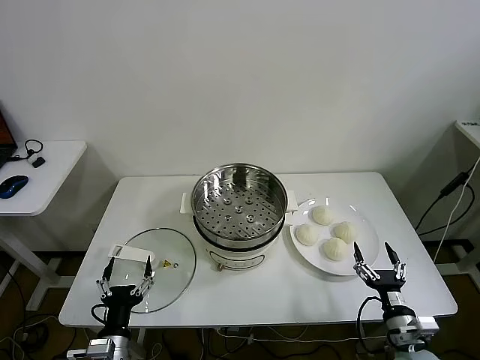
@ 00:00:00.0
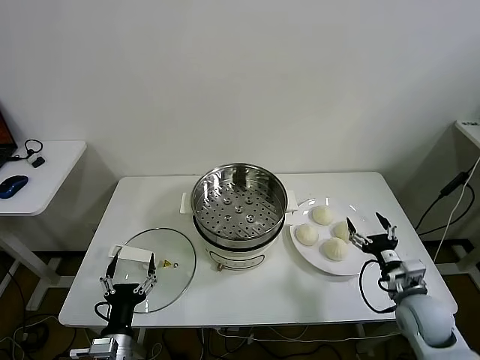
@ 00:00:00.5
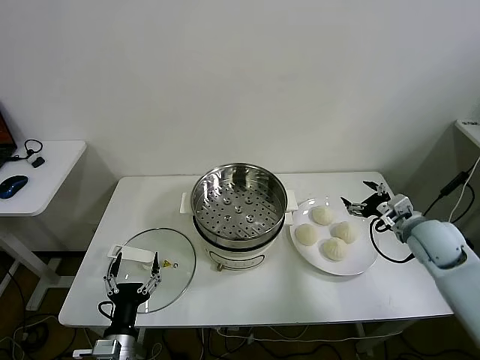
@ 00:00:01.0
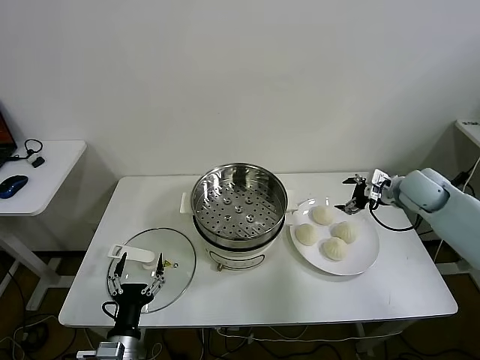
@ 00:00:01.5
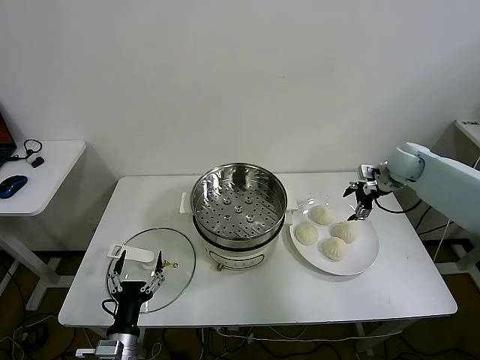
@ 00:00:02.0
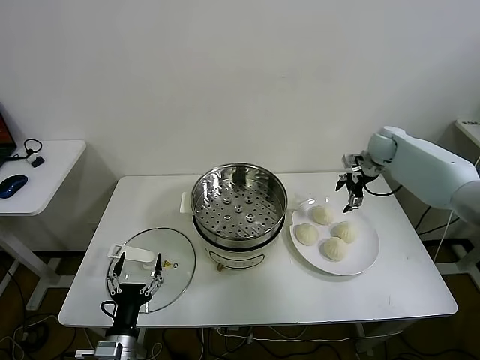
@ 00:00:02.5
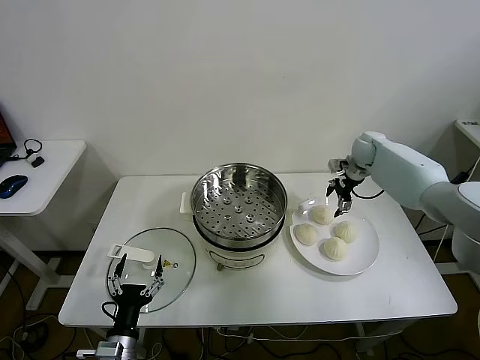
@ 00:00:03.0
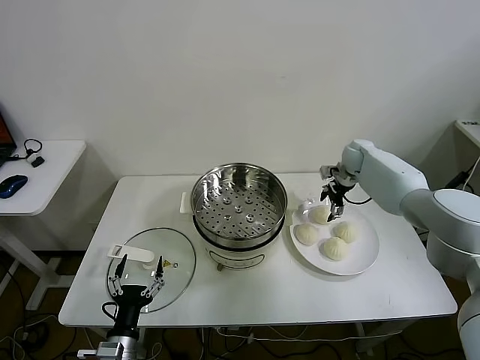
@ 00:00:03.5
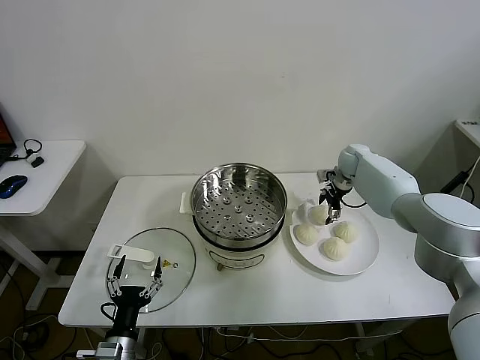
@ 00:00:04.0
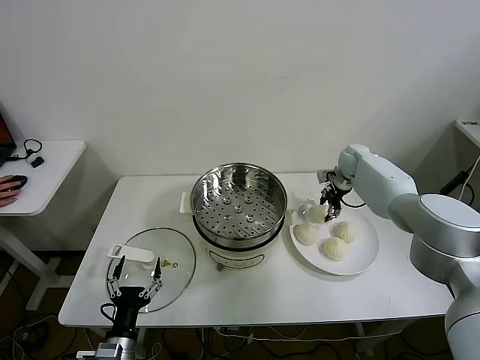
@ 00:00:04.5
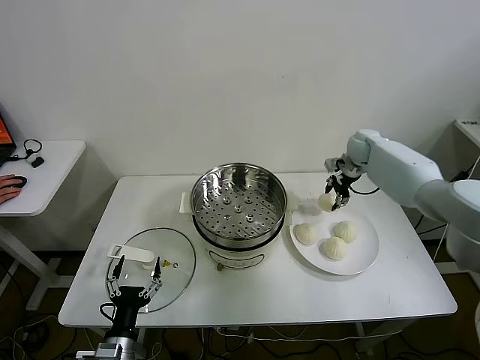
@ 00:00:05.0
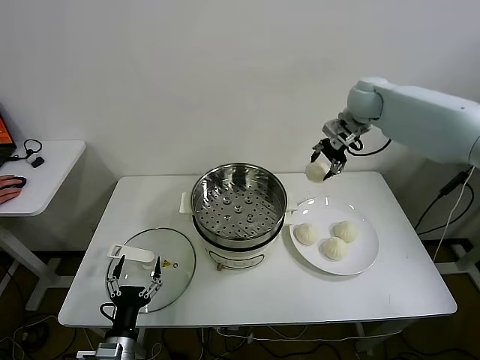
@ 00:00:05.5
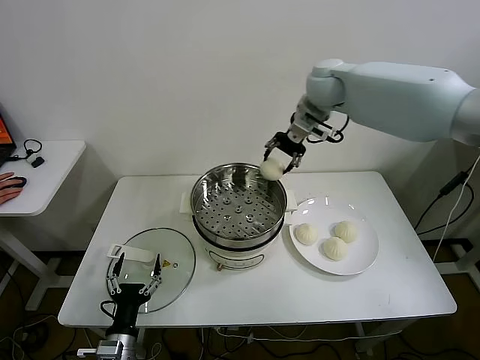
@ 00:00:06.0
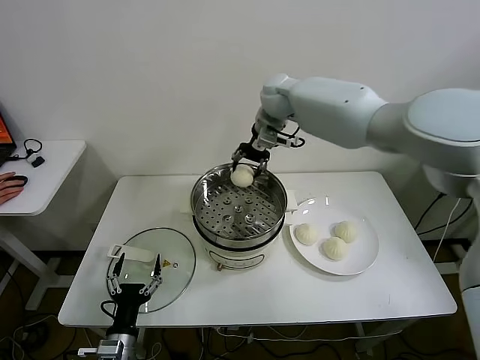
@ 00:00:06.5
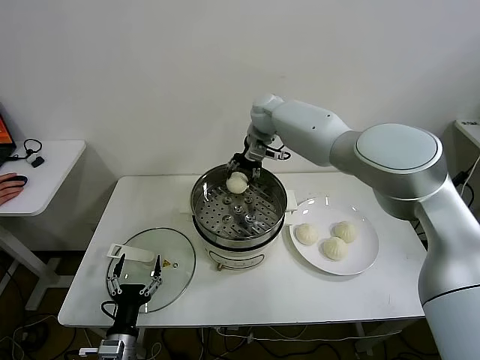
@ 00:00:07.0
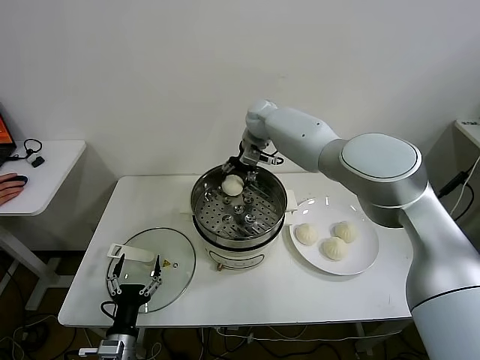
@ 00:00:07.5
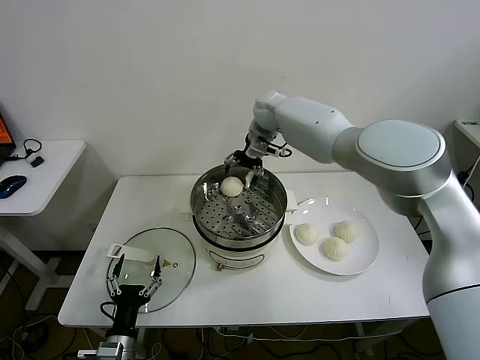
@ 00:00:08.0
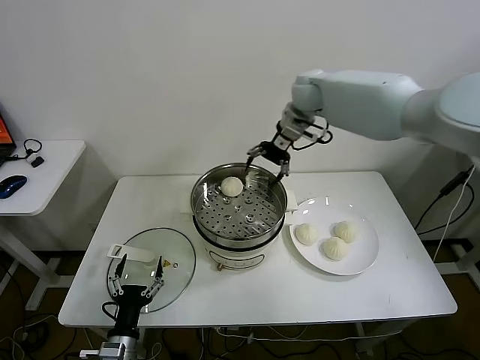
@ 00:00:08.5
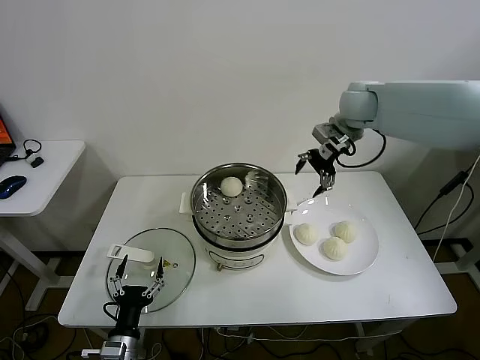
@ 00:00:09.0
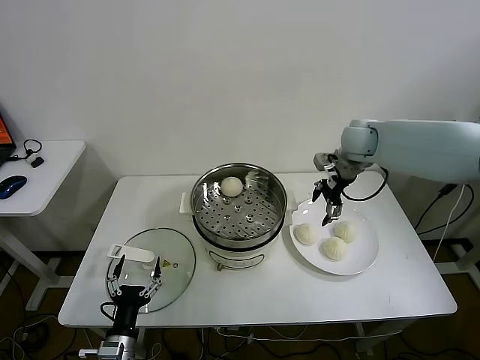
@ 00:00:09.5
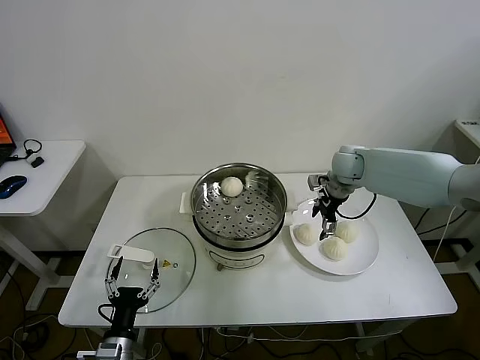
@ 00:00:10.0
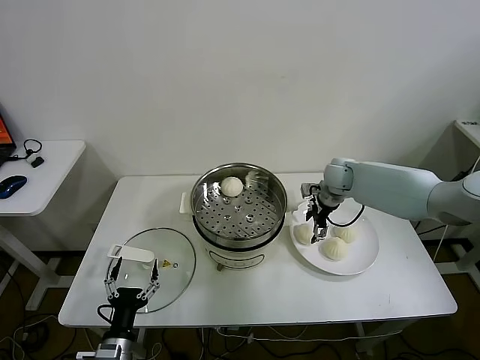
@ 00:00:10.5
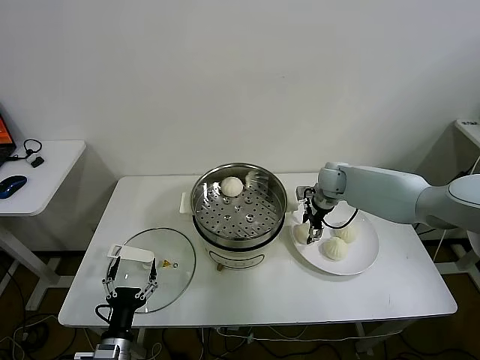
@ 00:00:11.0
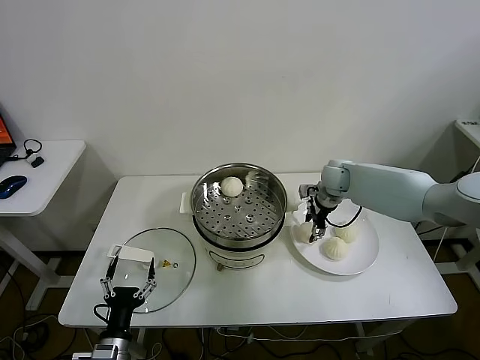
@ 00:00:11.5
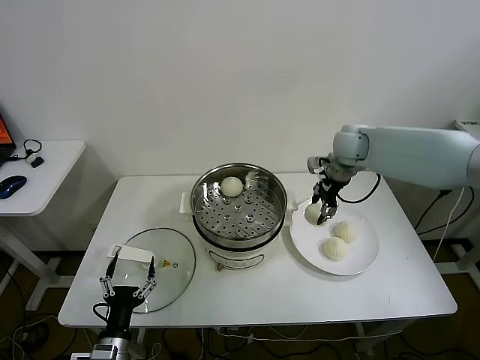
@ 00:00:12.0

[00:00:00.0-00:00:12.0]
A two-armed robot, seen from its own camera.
Task of the whole recording: take steamed baozi put them in steamer.
Step, 00:00:00.0 to 00:00:04.5: Grasp the baozi in the plate with right gripper.
Step, 00:00:05.0 to 00:00:07.5: Place the baozi on the steamer with right gripper.
Step, 00:00:08.0 to 00:00:11.0: Grasp the baozi in the plate with right gripper.
00:00:02.0 to 00:00:04.0: The right gripper travels to the left, downward and forward by some 15 cm.
00:00:04.0 to 00:00:06.0: The right gripper moves upward and to the left, roughly 30 cm, and closes up.
00:00:06.0 to 00:00:08.0: The right gripper moves downward, to the left and forward, approximately 10 cm, and opens.
00:00:08.0 to 00:00:10.0: The right gripper moves to the right, downward and backward, approximately 25 cm.
00:00:10.0 to 00:00:12.0: The right gripper shifts approximately 10 cm upward, and closes up.

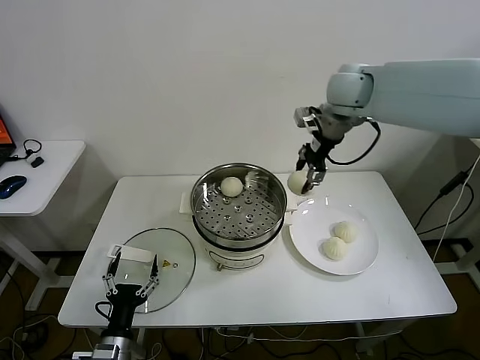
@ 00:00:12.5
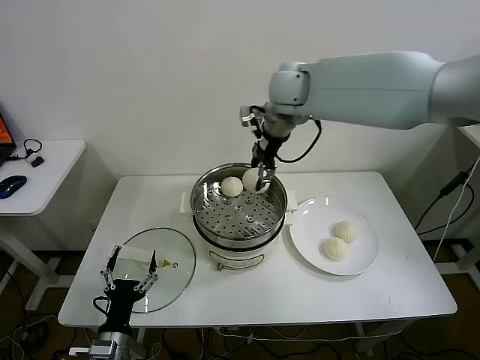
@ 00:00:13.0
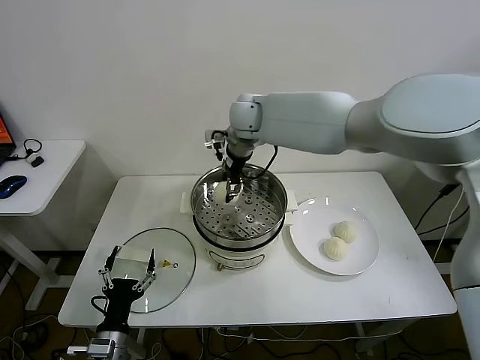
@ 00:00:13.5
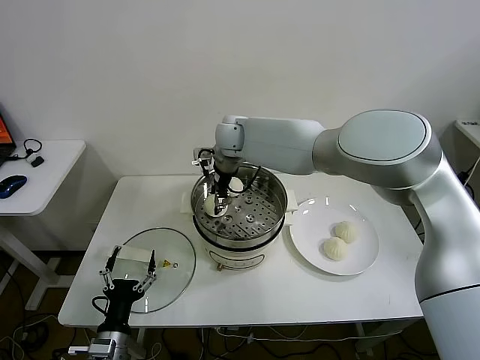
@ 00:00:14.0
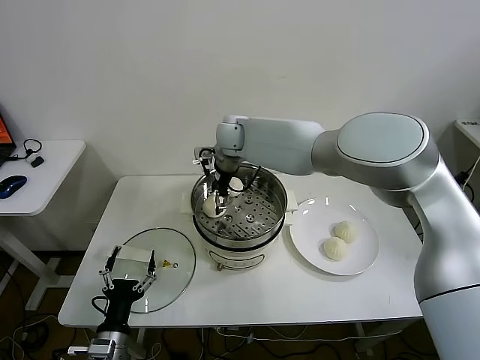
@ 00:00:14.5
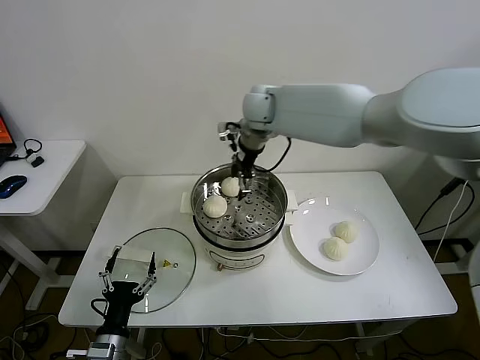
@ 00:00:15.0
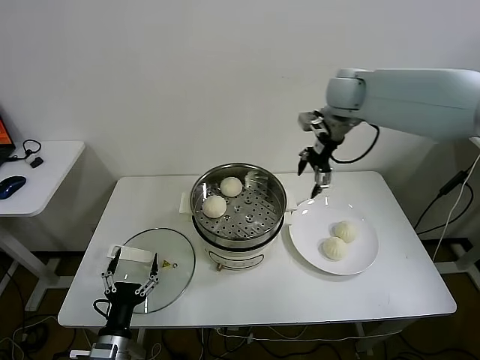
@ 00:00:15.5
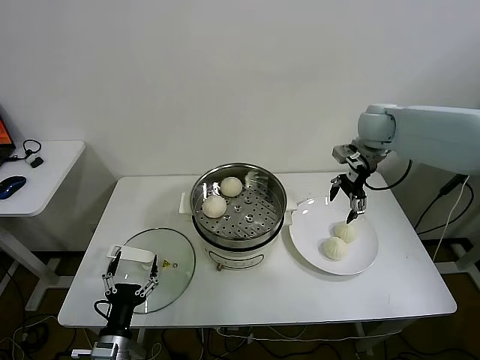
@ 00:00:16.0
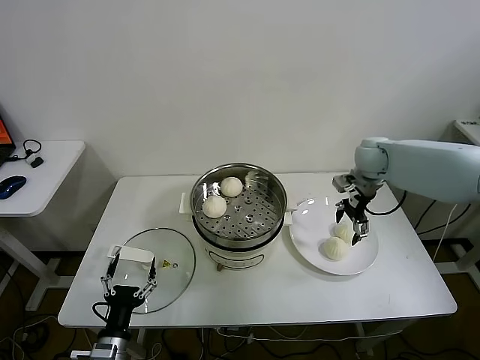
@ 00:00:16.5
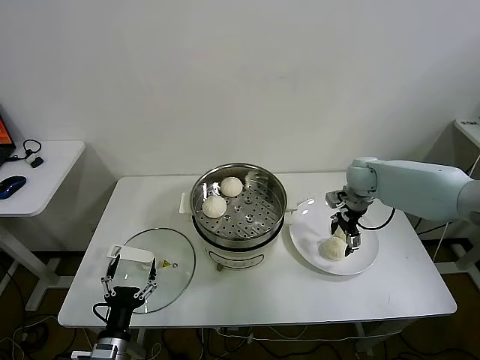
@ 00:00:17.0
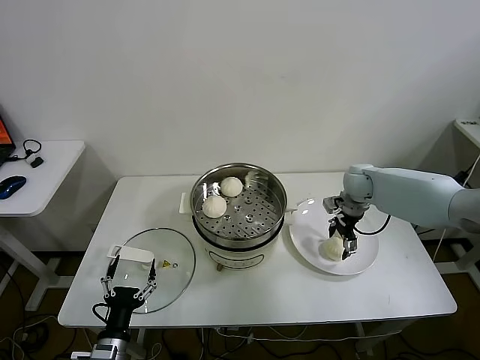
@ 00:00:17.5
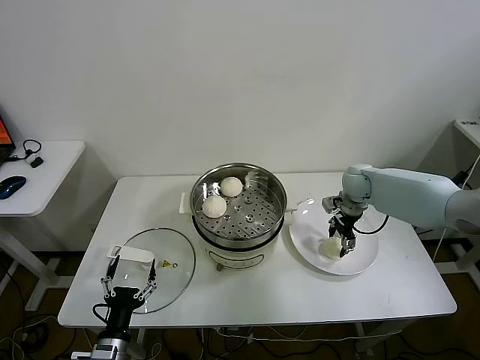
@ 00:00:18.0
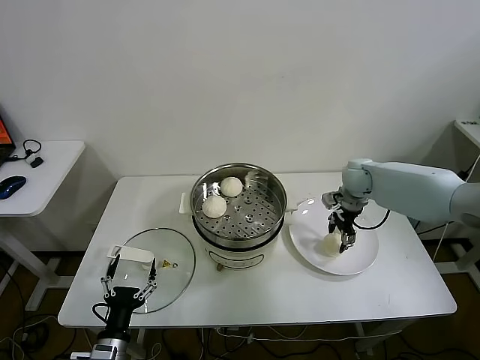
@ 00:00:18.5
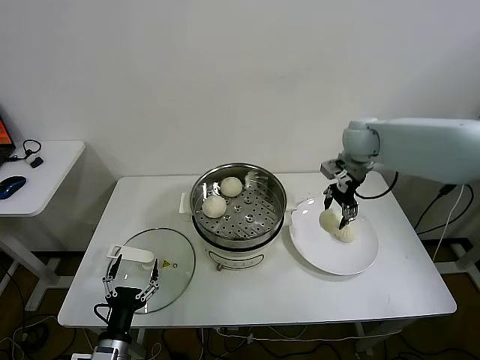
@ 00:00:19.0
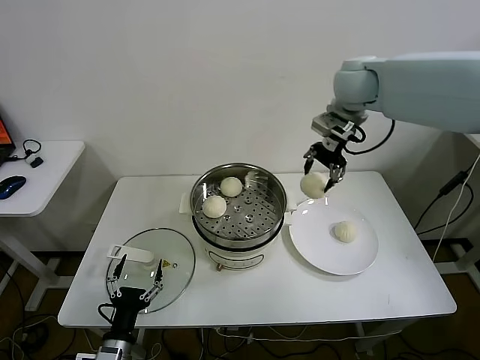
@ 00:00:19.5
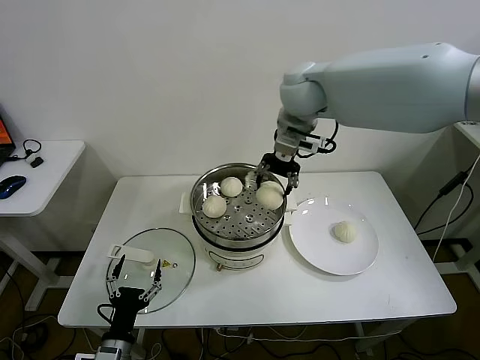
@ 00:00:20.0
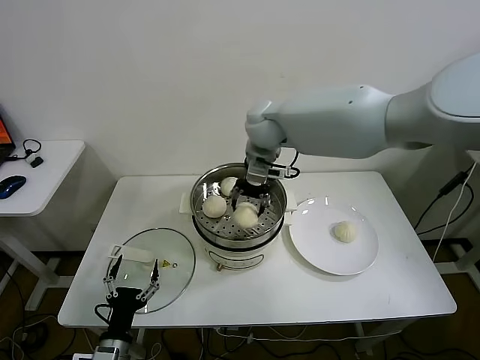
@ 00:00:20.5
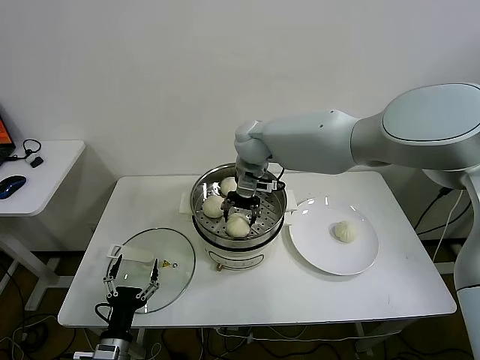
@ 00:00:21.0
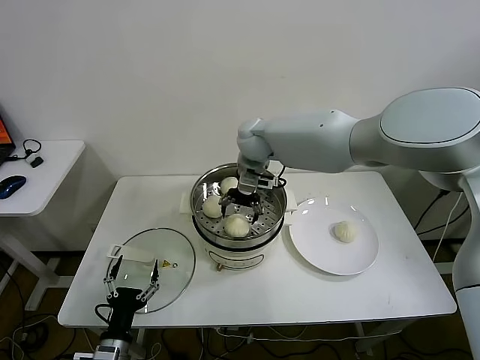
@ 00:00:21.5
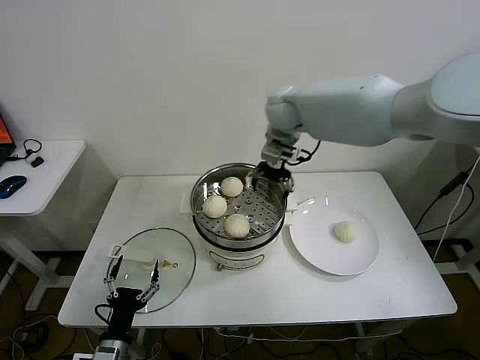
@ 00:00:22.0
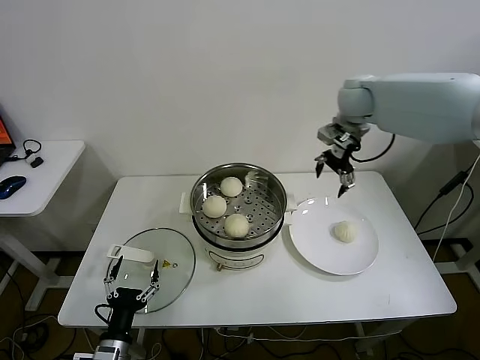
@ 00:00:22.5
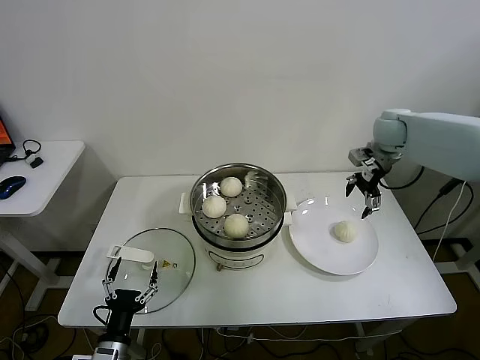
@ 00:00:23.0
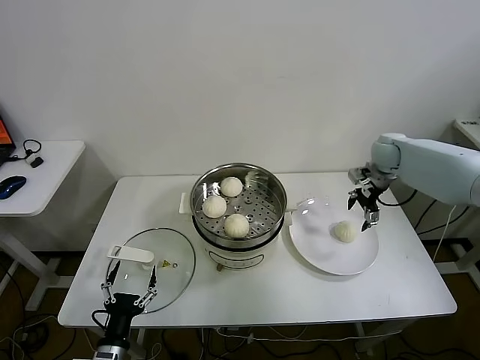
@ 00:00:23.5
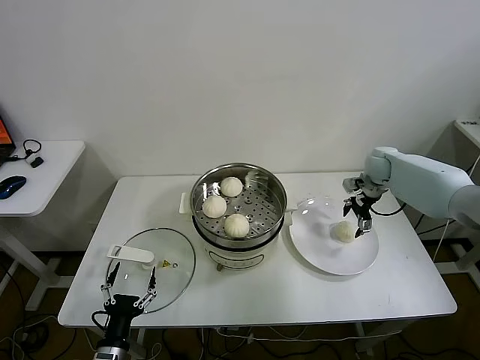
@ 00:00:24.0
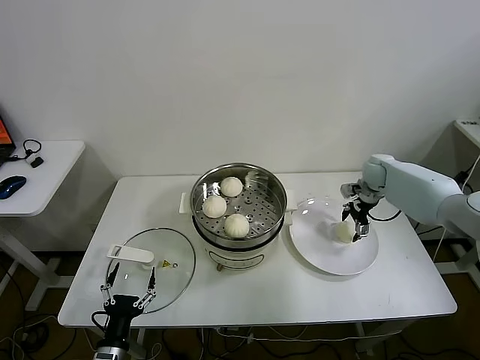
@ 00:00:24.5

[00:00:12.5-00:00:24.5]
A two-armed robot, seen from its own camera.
Task of the whole recording: take steamed baozi put them in steamer.
Step, 00:00:12.5 to 00:00:14.5: Place the baozi on the steamer with right gripper.
Step, 00:00:15.0 to 00:00:18.0: Grasp the baozi in the plate with right gripper.
Step, 00:00:18.5 to 00:00:21.0: Place the baozi on the steamer with right gripper.
00:00:12.5 to 00:00:14.5: The right gripper shifts roughly 25 cm to the left and downward, and opens up.
00:00:14.5 to 00:00:16.5: The right gripper travels to the right by approximately 35 cm.
00:00:16.5 to 00:00:18.5: The right gripper heads downward, covering approximately 5 cm, and closes.
00:00:18.5 to 00:00:20.5: The right gripper is displaced to the left and upward by about 30 cm.
00:00:20.5 to 00:00:22.5: The right gripper moves to the right, about 20 cm, and opens up.
00:00:22.5 to 00:00:24.5: The right gripper shifts some 25 cm downward and to the right.

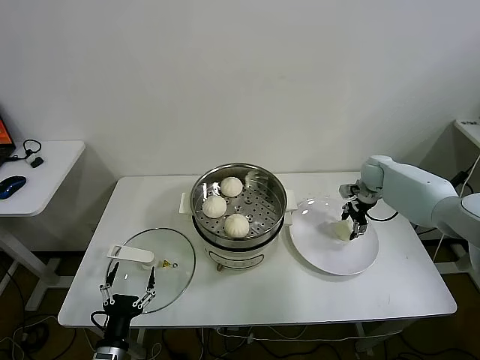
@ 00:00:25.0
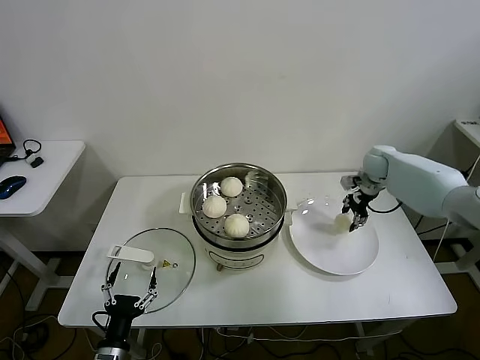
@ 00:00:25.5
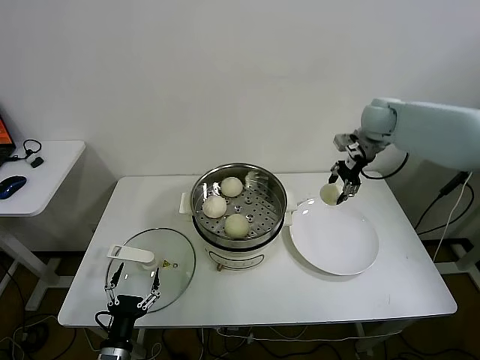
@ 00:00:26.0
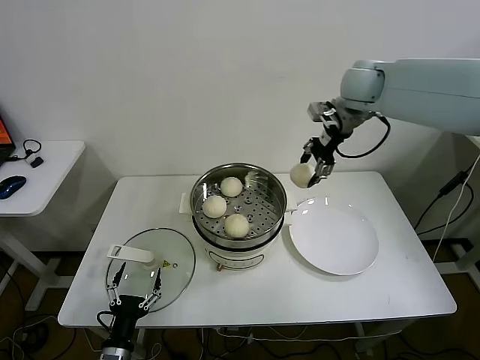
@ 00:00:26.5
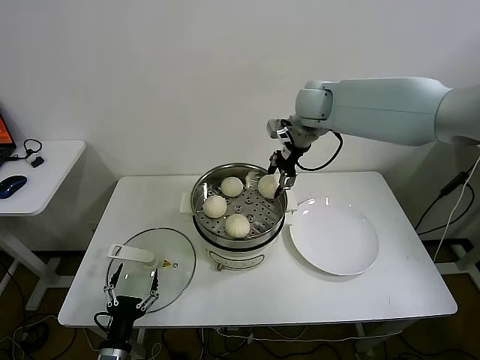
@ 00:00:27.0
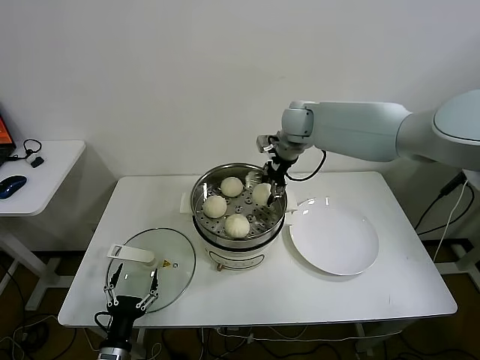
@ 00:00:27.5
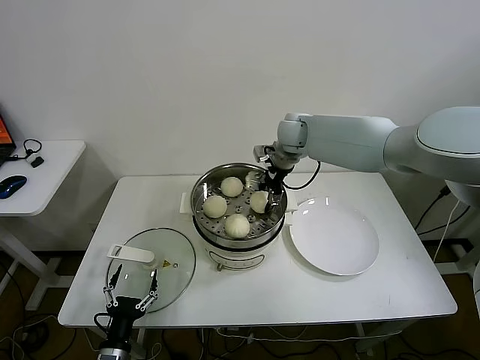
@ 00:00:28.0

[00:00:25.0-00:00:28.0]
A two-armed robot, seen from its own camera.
Task of the whole recording: take steamed baozi put them in steamer.
00:00:25.0 to 00:00:26.5: The right gripper goes about 30 cm upward and to the left, and closes.
00:00:26.5 to 00:00:28.0: The right gripper goes approximately 20 cm downward and to the left.
